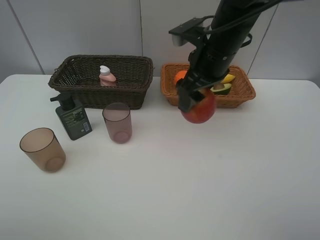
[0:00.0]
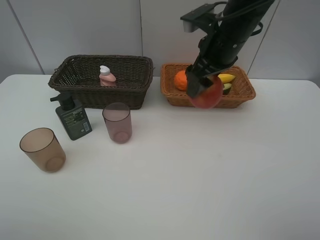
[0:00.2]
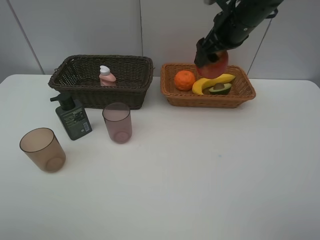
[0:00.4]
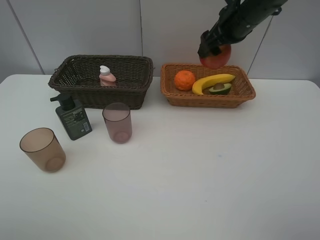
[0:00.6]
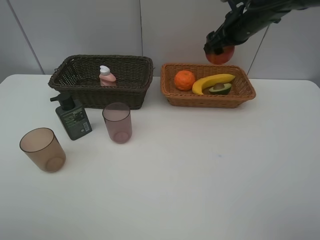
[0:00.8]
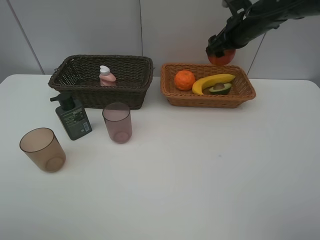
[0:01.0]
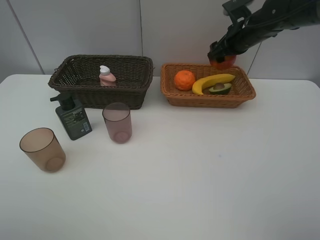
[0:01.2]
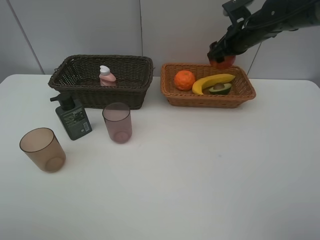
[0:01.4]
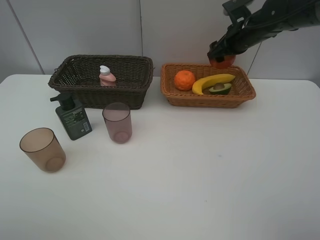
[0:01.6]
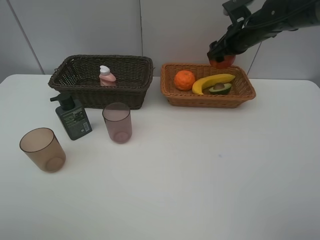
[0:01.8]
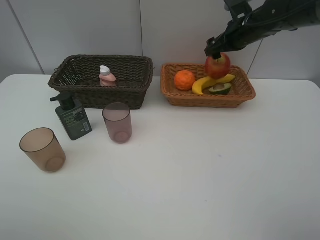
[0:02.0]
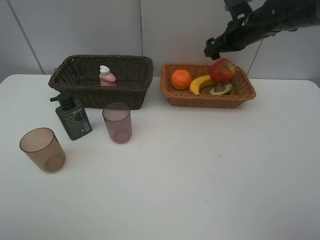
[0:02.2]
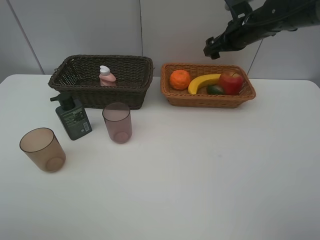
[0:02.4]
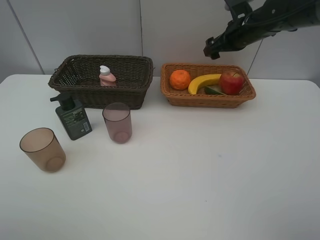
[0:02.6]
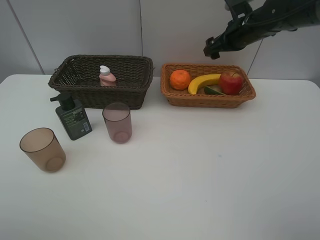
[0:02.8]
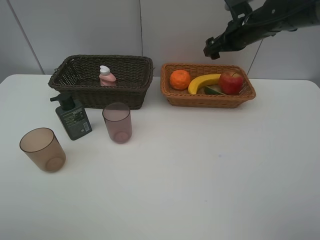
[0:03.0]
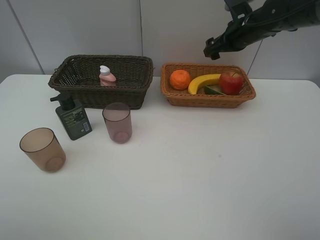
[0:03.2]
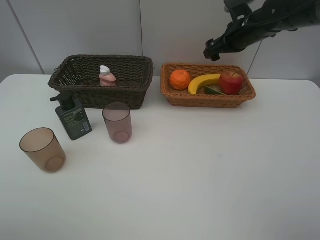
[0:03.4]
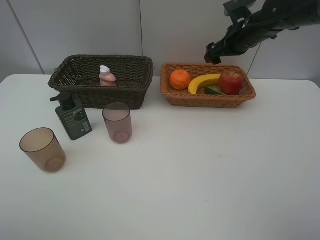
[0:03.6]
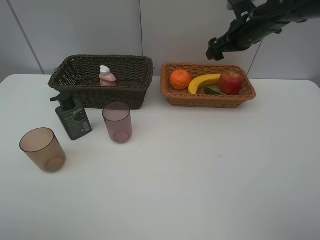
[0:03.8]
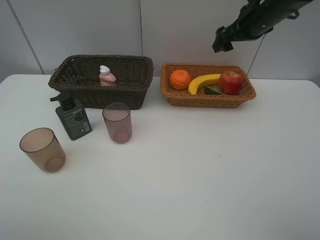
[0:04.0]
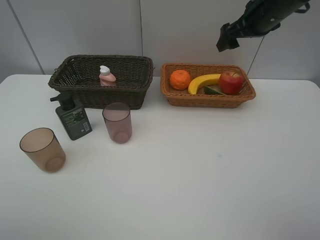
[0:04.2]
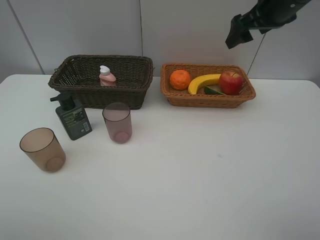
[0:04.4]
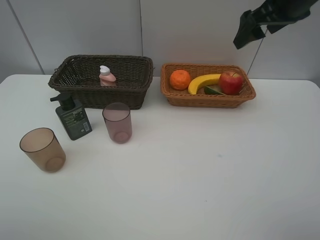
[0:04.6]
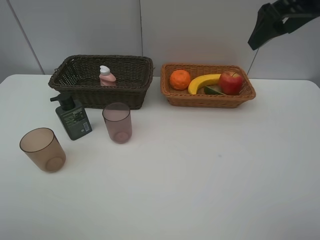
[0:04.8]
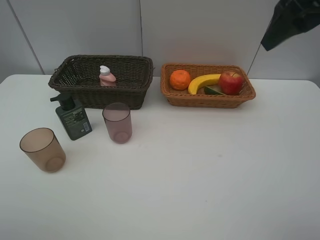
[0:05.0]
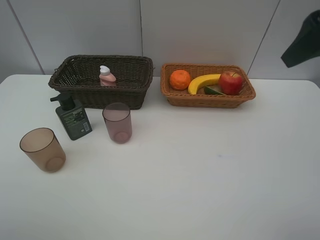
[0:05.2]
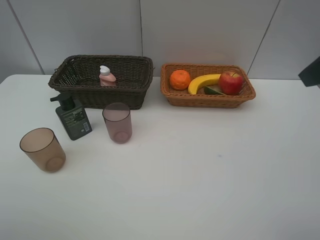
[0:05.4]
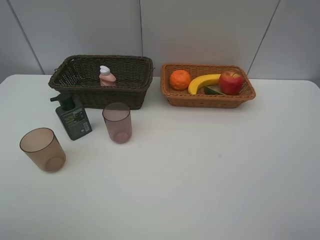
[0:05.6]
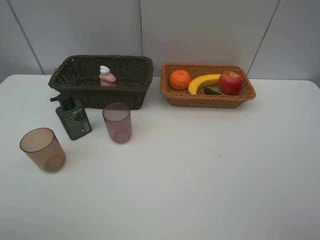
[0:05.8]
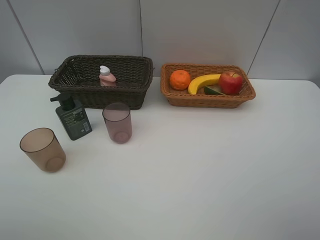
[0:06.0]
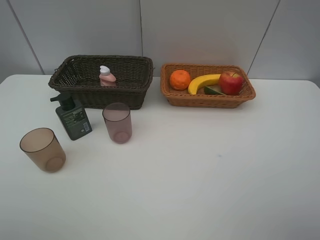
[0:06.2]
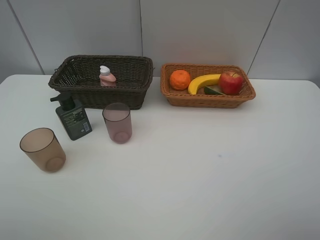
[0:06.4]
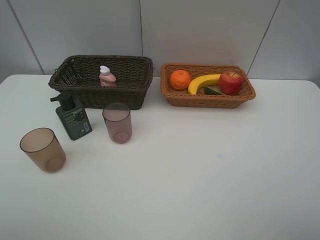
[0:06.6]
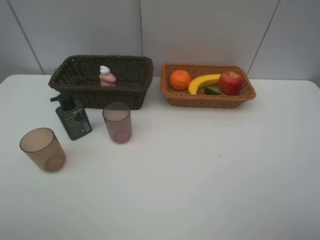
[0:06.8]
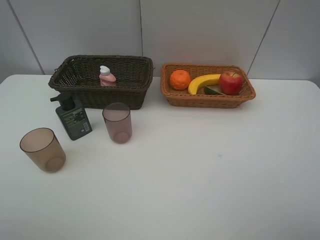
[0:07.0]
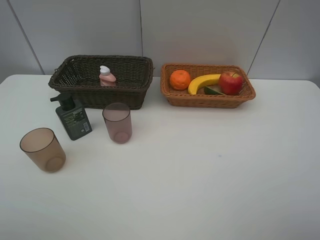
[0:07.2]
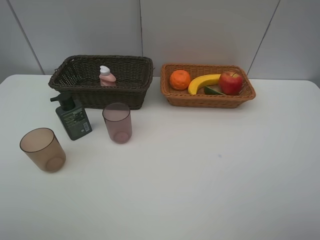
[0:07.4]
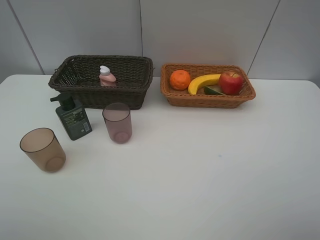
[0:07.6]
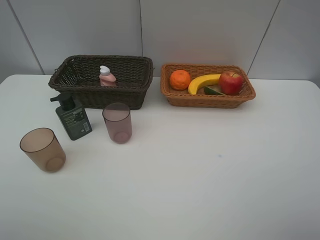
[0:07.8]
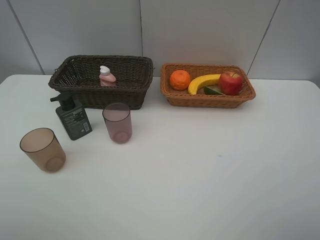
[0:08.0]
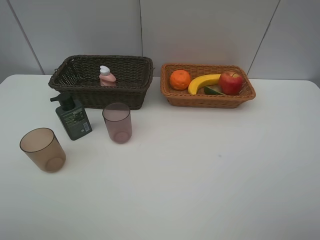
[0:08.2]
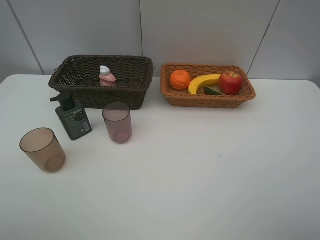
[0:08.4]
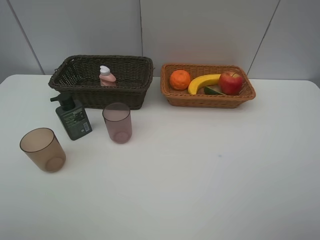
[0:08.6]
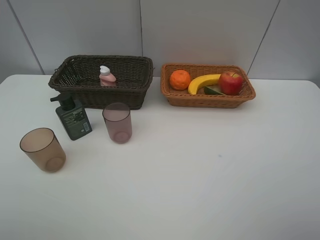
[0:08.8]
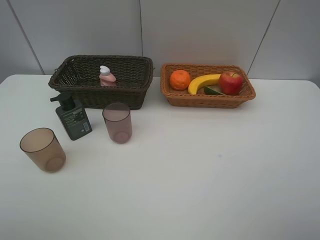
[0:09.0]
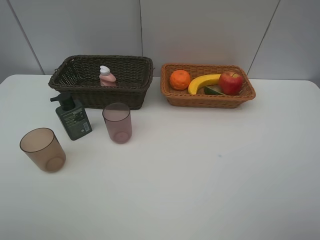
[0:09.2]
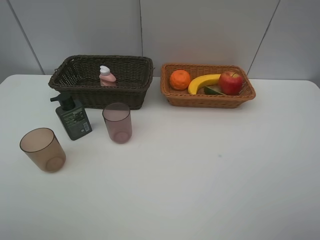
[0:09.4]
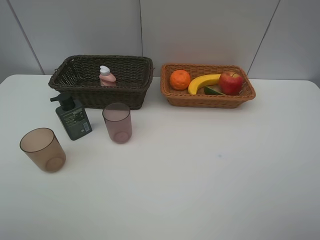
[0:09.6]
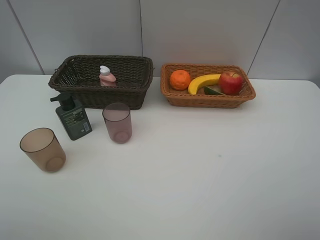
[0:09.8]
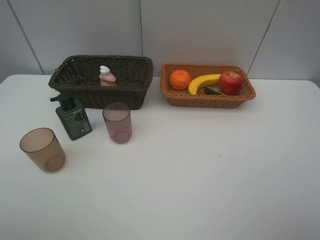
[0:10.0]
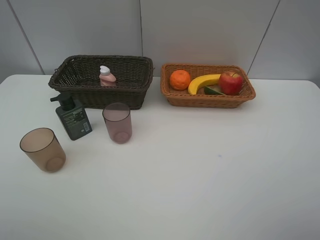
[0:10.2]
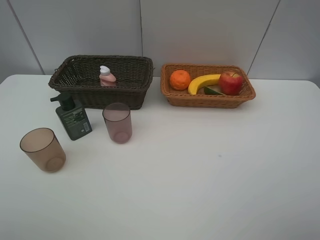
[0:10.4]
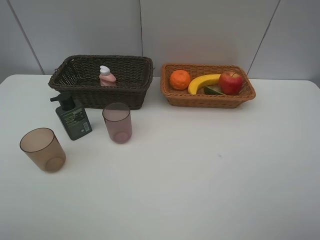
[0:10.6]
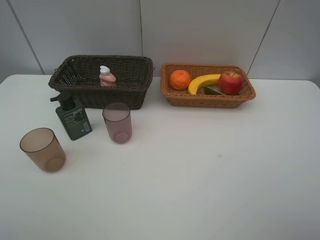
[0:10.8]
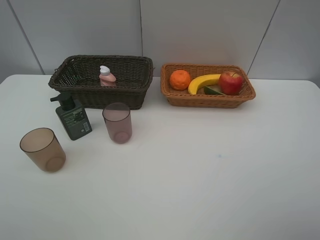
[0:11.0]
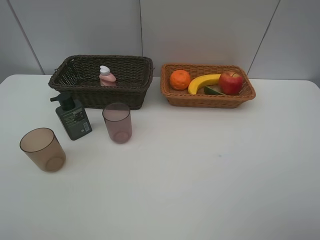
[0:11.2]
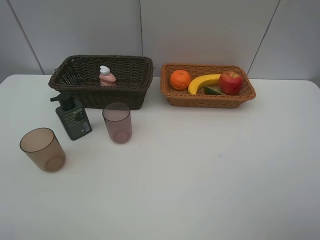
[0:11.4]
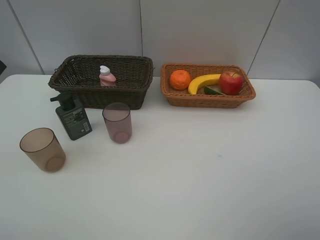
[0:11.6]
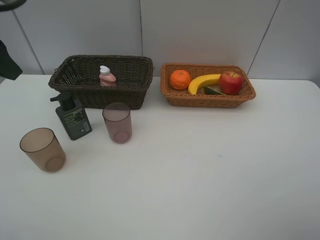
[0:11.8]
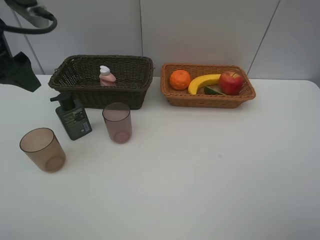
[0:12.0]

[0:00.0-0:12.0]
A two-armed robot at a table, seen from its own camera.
Task of the whole recording: Place multiple objects separately in different baskets.
Step, 0:00.0 to 0:02.4: Place the apple in the light basket with right gripper.
0:00.0 to 0:01.6: The right gripper travels forward and to the right by some 15 cm.
0:01.6 to 0:03.0: Both grippers stay about where they are.
0:03.0 to 0:04.4: The right gripper shifts approximately 15 cm upward and backward.
0:04.4 to 0:06.0: The right gripper moves backward, about 30 cm.
0:10.4 to 0:12.0: The left gripper is displaced forward by approximately 25 cm.

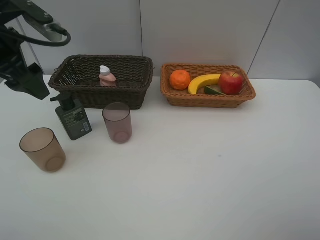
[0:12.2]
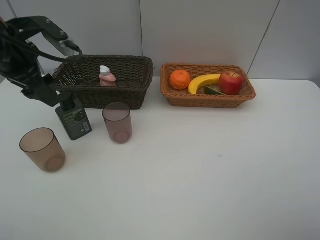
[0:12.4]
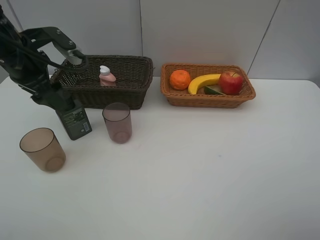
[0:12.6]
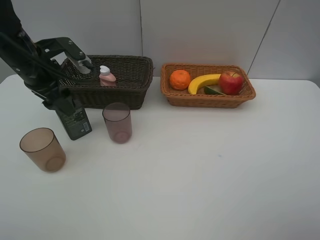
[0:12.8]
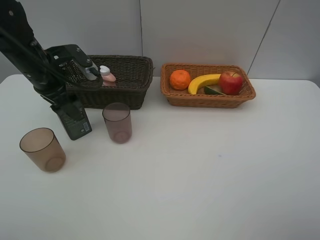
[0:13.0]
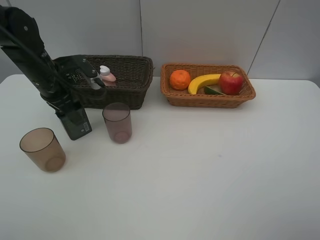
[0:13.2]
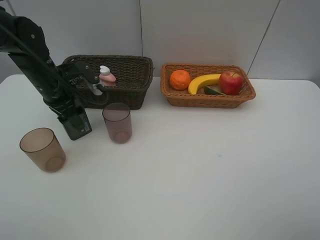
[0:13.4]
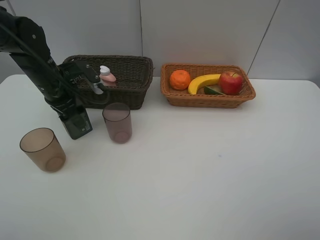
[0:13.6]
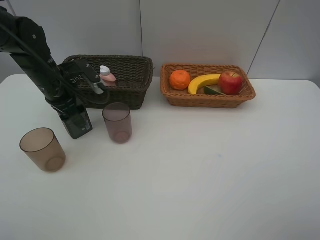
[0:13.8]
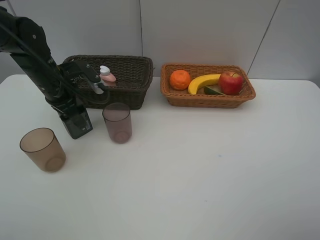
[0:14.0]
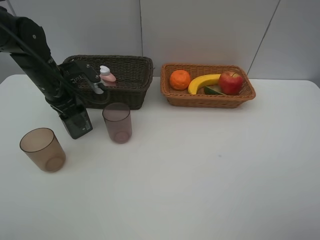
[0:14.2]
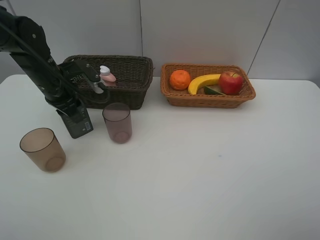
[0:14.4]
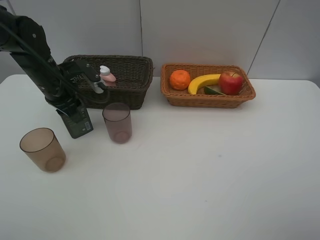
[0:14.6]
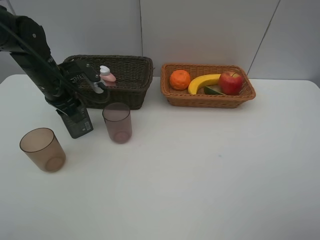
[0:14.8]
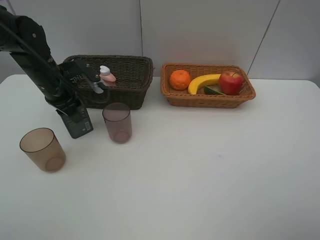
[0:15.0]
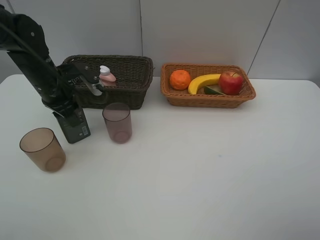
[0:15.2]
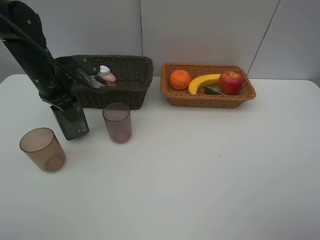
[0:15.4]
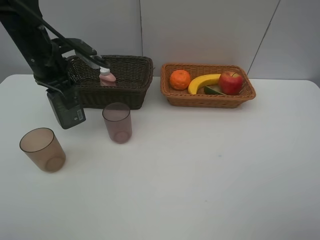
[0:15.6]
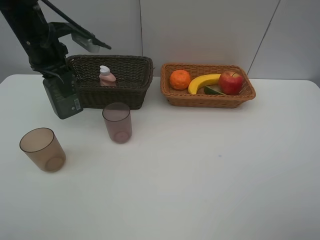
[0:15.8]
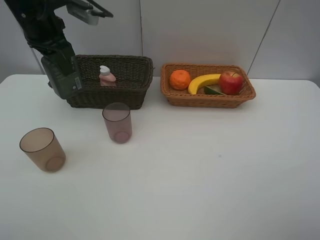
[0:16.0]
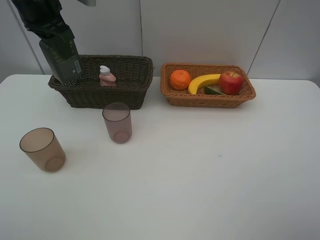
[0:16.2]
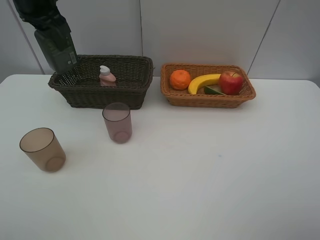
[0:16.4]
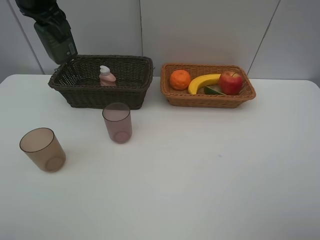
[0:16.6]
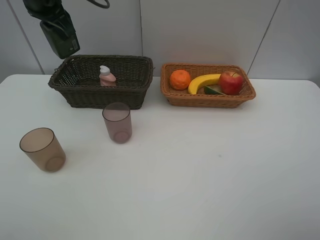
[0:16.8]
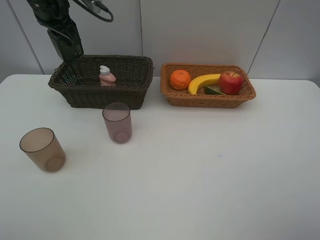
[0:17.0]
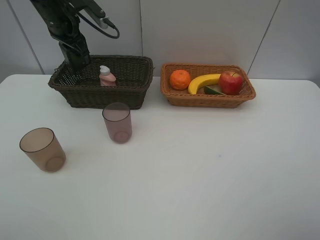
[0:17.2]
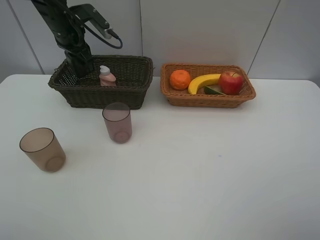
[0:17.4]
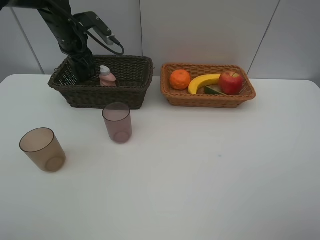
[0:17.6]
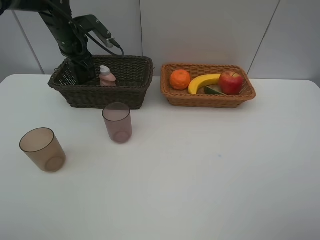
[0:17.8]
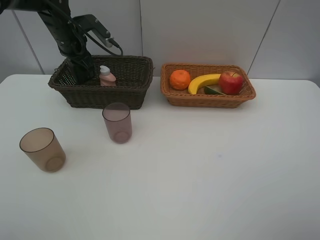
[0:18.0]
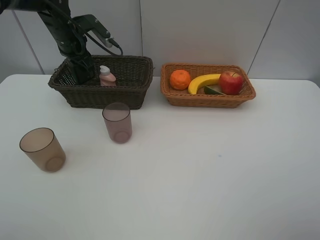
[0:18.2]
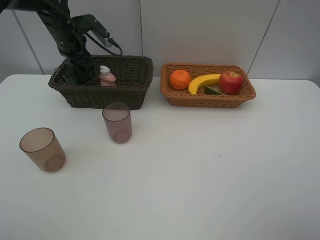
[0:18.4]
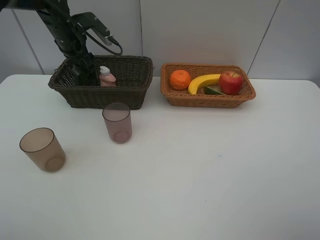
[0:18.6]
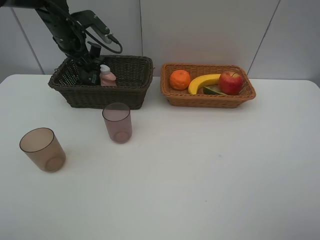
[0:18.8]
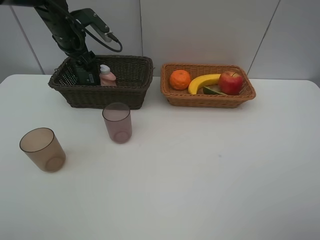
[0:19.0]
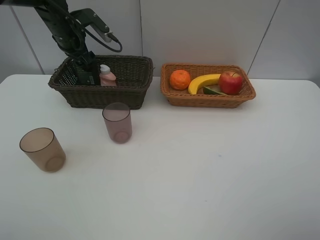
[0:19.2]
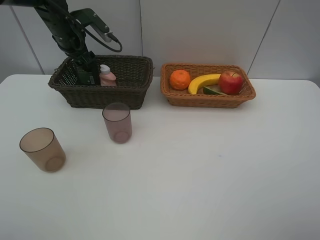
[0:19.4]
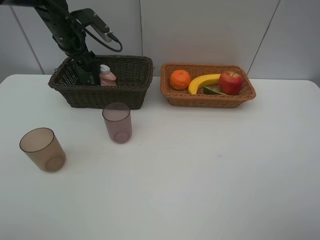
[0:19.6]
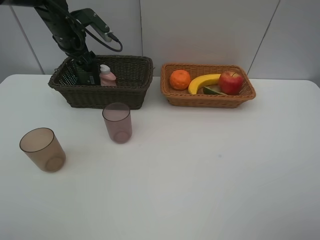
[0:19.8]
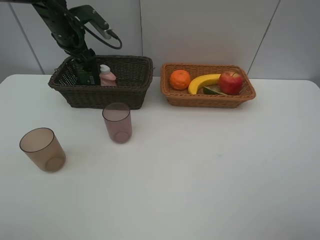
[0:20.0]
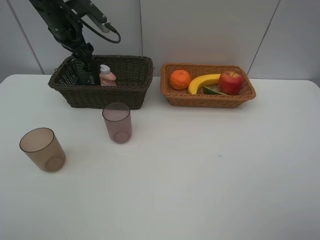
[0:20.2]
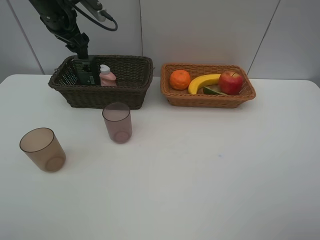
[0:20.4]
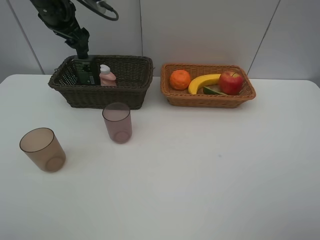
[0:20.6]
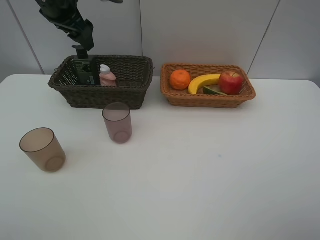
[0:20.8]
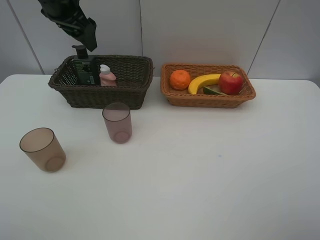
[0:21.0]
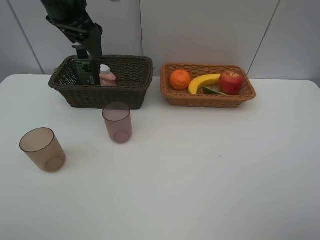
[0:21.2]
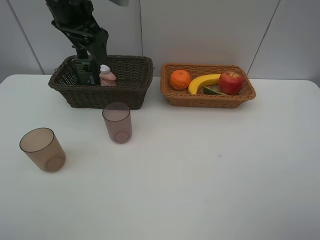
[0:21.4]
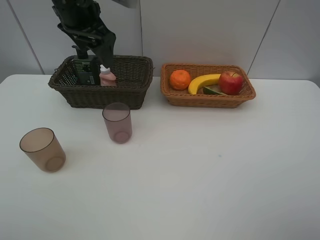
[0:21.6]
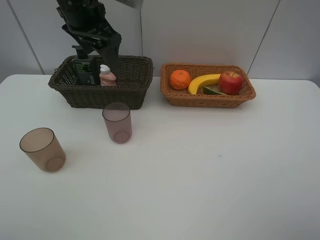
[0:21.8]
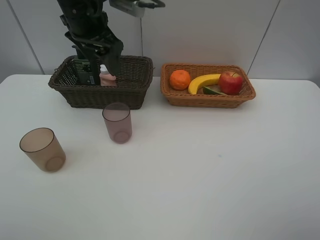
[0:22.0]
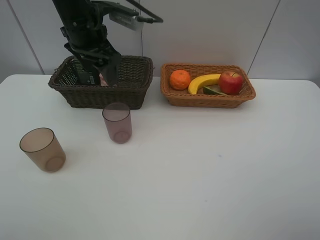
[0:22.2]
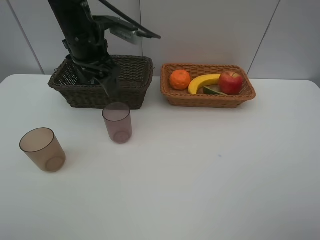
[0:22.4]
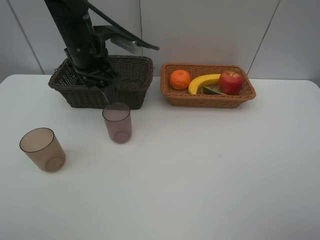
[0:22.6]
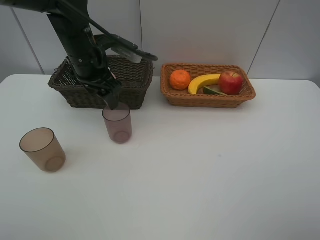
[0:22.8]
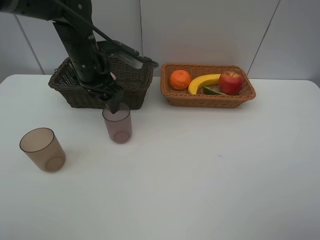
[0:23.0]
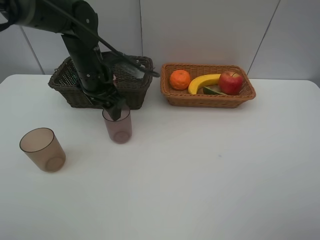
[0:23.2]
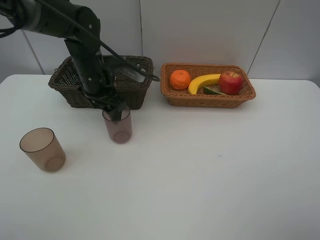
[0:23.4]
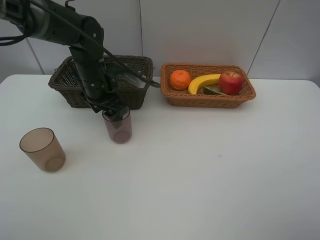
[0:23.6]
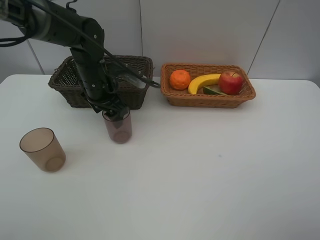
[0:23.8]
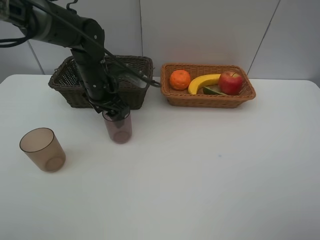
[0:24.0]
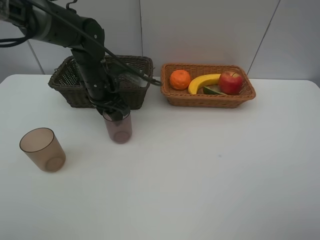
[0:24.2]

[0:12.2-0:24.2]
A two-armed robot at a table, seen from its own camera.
Task of the whole recording: Place multiple objects separately in different baskets.
Step, 0:12.2 to 0:15.4: Pick up the hard facial cleanser with left gripper.
Step, 0:15.6 to 0:20.4: Place the hard facial cleanser in the dark basket with left gripper.
0:12.2 to 0:13.8: The left gripper moves downward and forward, some 15 cm.
0:13.8 to 0:15.2: The left gripper closes up.
0:15.2 to 0:16.6: The left gripper shifts some 15 cm upward and forward.
0:16.6 to 0:18.2: The left gripper travels downward and forward by roughly 15 cm.
0:18.2 to 0:19.8: The left gripper opens its fingers.
0:19.8 to 0:21.2: The left gripper goes some 15 cm upward, backward and to the right.
0:21.2 to 0:22.6: The left gripper goes approximately 10 cm downward.
0:22.6 to 0:24.2: The left gripper goes approximately 10 cm downward, and closes.
